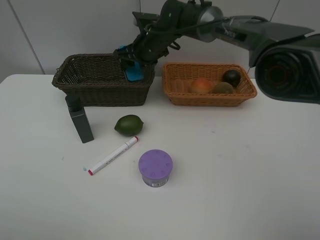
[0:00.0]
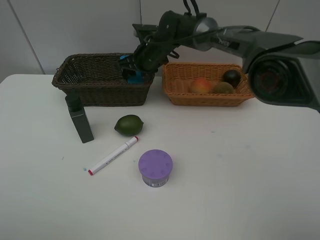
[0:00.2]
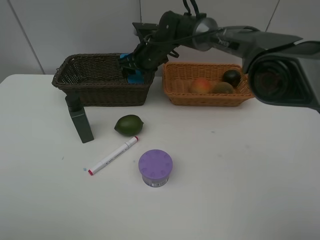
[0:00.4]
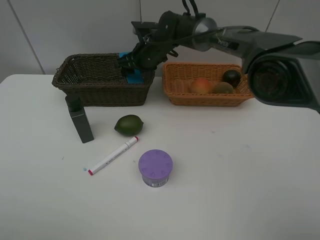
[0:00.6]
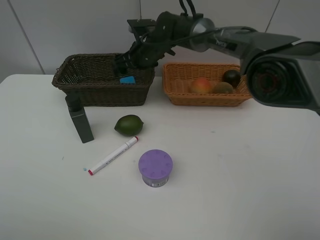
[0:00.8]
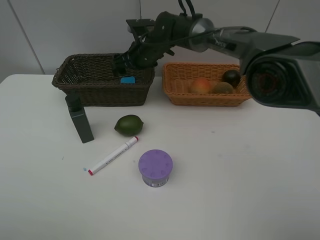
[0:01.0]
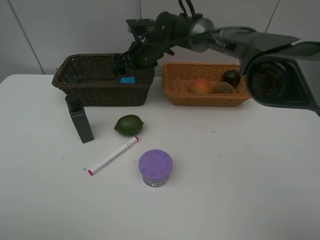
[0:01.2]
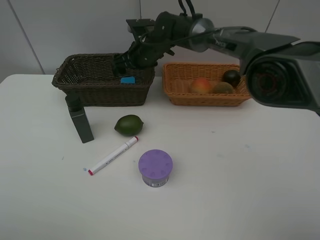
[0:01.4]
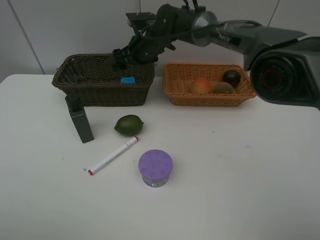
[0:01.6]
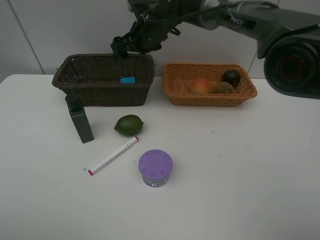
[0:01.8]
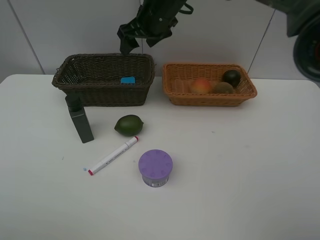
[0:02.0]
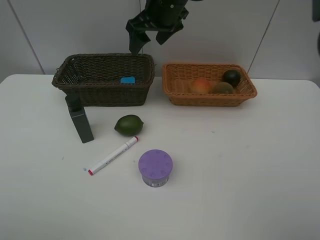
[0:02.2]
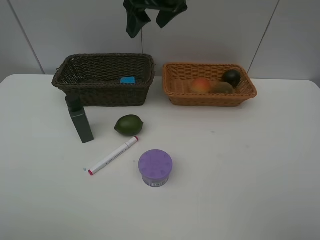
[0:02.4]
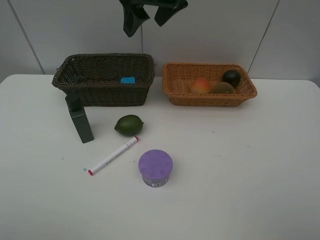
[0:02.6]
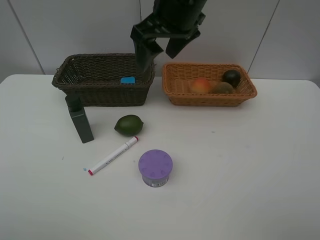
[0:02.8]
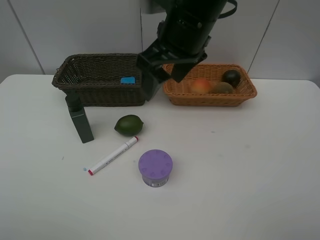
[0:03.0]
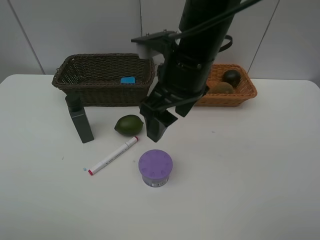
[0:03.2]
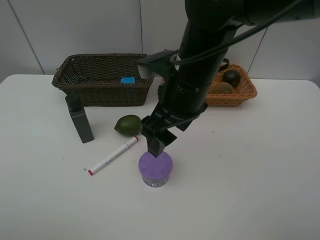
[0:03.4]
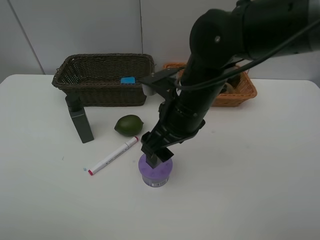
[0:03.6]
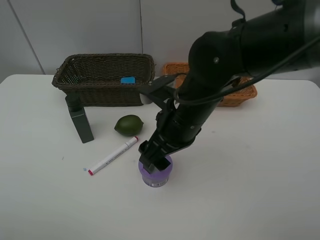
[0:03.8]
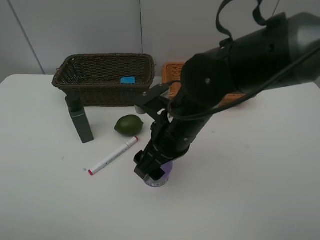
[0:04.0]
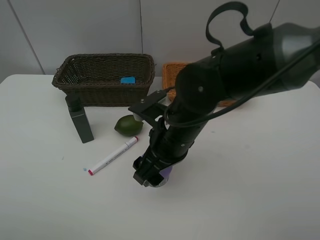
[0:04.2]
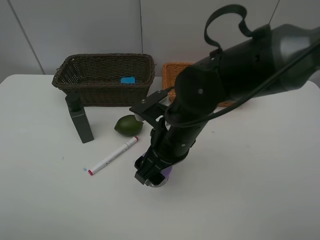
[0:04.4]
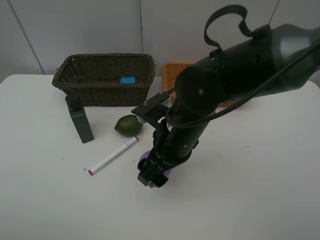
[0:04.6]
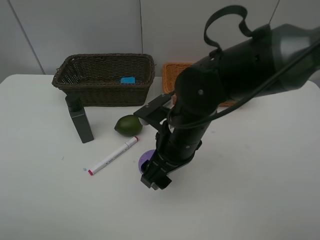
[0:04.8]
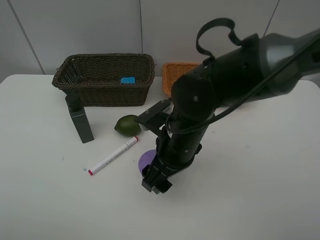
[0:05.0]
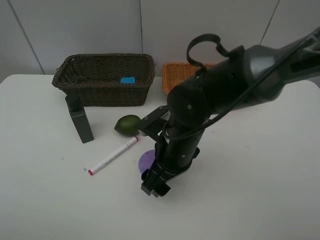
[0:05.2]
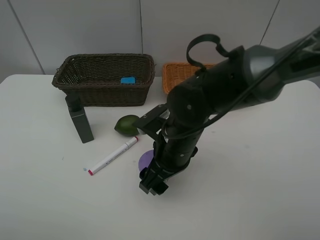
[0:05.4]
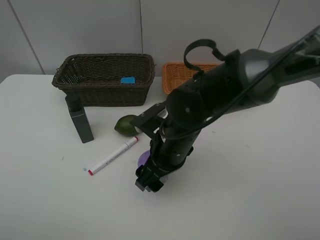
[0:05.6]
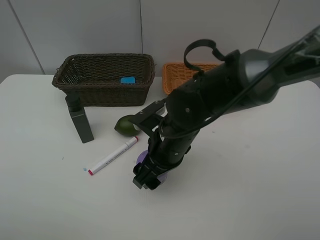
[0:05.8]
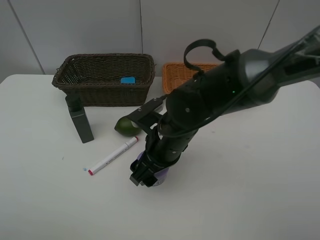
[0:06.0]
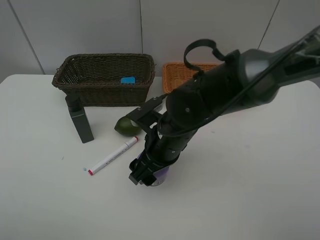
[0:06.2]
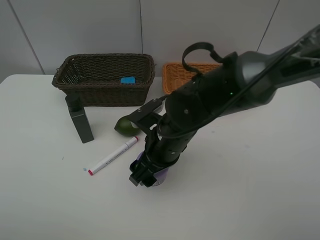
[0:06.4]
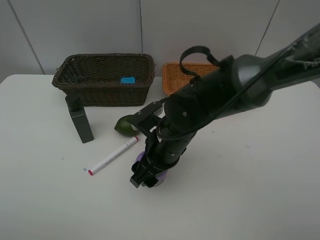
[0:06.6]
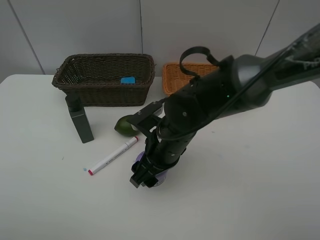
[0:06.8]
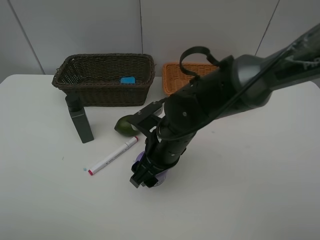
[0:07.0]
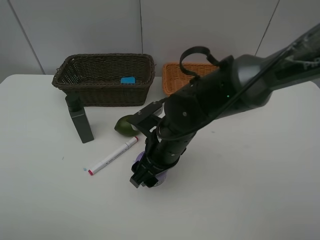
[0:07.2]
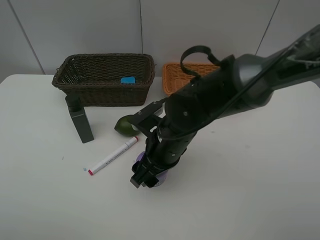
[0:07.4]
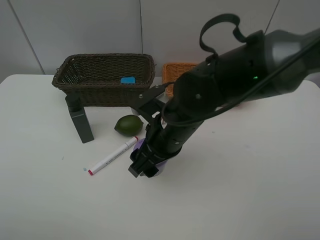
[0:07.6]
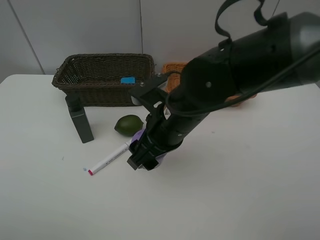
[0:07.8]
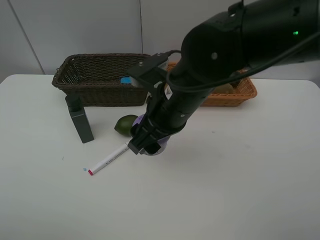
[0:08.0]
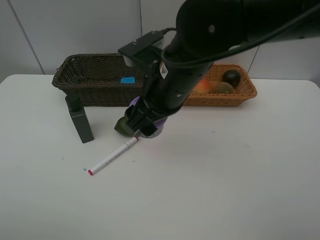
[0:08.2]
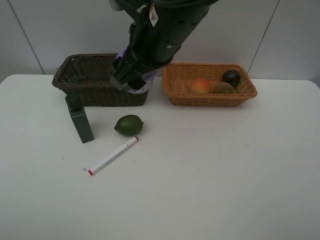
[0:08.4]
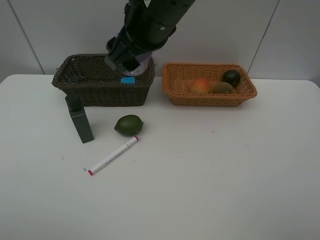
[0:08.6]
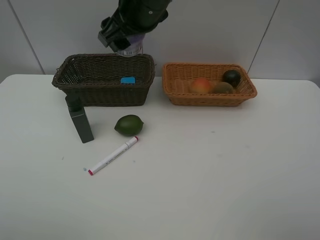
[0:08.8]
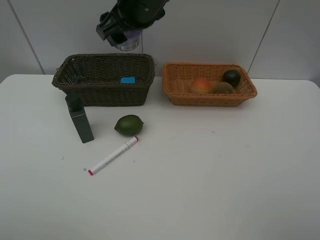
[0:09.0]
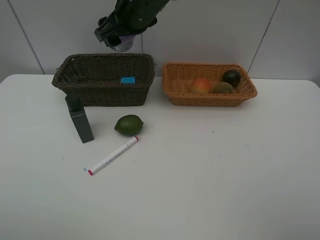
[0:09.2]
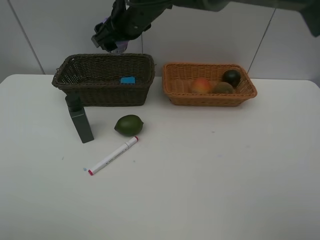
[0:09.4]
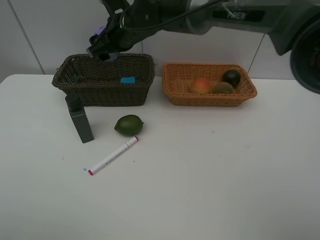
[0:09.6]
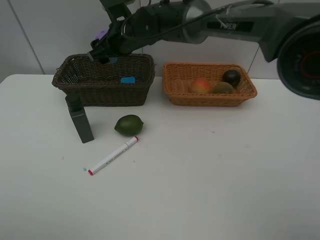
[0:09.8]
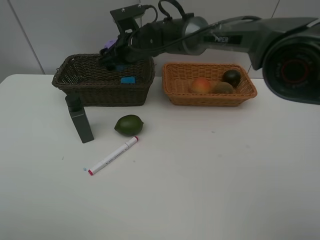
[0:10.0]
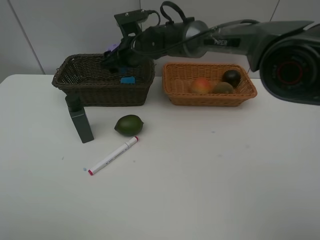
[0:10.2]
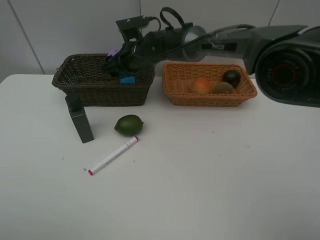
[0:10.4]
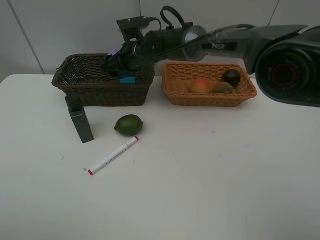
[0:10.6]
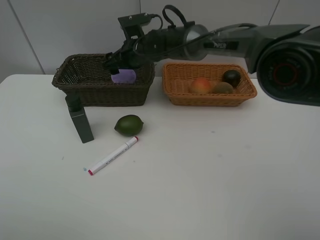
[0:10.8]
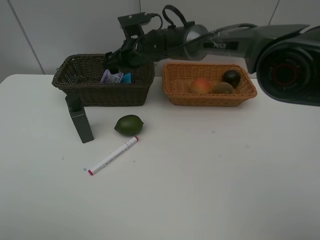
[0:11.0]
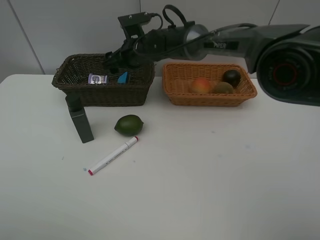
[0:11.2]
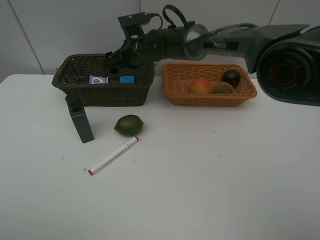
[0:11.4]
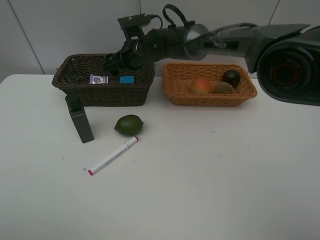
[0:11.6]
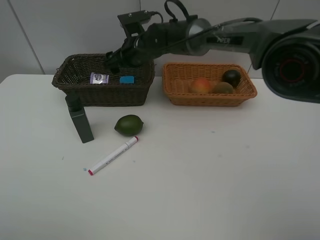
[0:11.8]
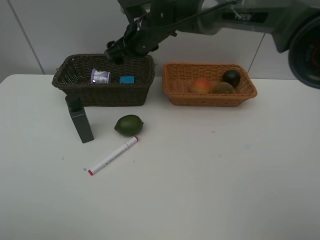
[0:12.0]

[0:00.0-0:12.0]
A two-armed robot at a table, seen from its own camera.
Task of the whole recording: Place multiple objects separately in different baskets.
Step, 0:01.8 to 0:07.4: Pick up Incense box with right gripper.
Step, 0:07.6 to 0:11.4: Place the Incense box in the dark basket with right gripper.
0:00.0 to 0:01.6: The right gripper opens its fingers.
0:01.6 to 0:03.0: The right gripper is displaced backward and upward by approximately 25 cm.
0:03.0 to 0:04.4: The right gripper travels downward and backward by roughly 15 cm.
0:04.4 to 0:07.6: There are only small adjustments of the grippers.
0:07.6 to 0:09.0: The right gripper shifts about 20 cm upward and forward.
0:09.0 to 0:10.4: The right gripper moves downward and forward, roughly 15 cm.
0:10.4 to 0:12.0: The right gripper heads upward, covering approximately 5 cm.

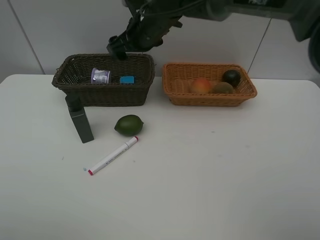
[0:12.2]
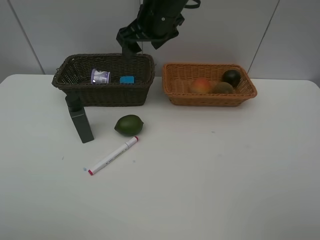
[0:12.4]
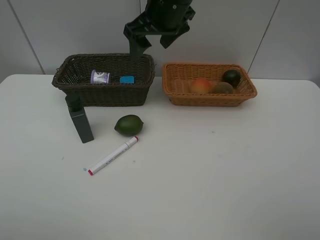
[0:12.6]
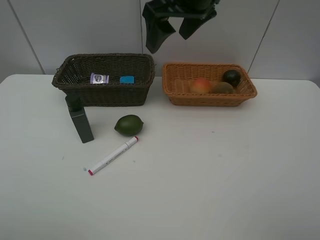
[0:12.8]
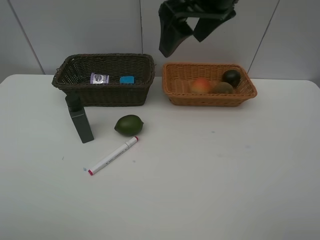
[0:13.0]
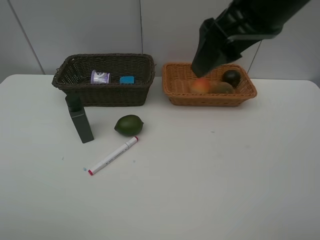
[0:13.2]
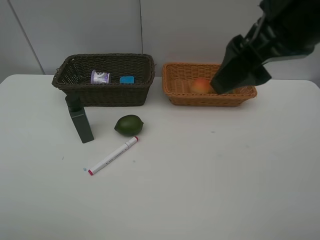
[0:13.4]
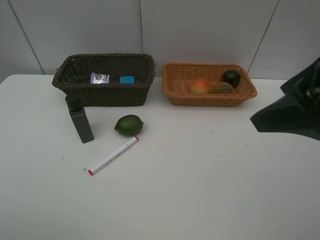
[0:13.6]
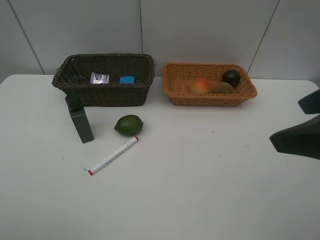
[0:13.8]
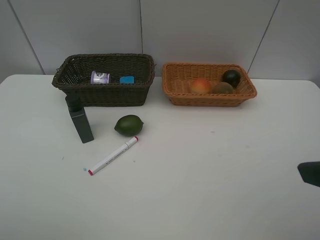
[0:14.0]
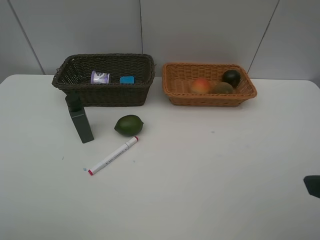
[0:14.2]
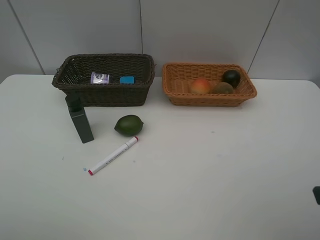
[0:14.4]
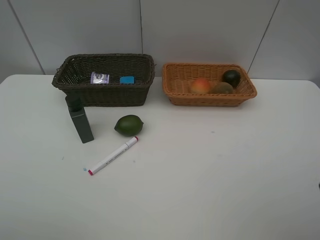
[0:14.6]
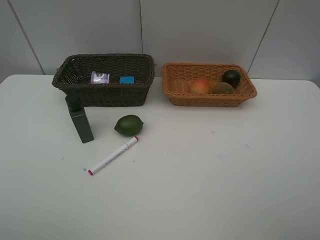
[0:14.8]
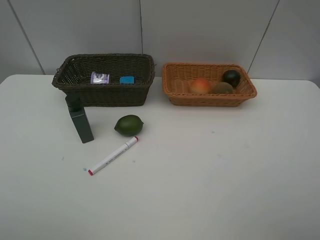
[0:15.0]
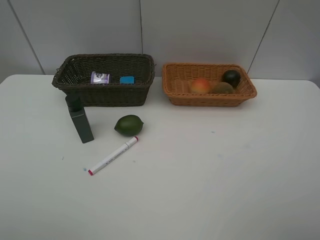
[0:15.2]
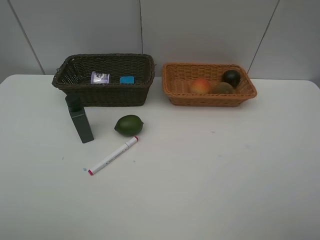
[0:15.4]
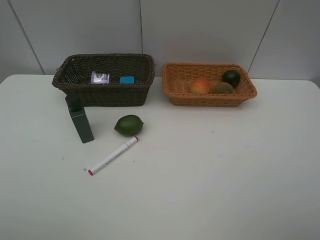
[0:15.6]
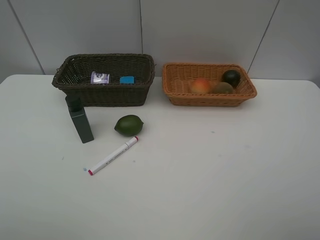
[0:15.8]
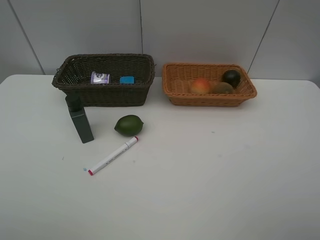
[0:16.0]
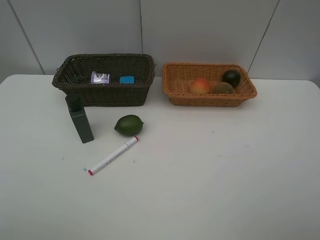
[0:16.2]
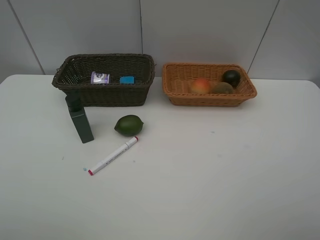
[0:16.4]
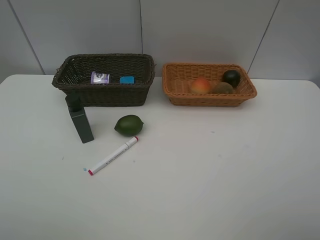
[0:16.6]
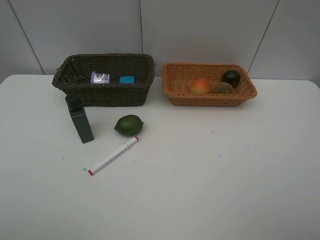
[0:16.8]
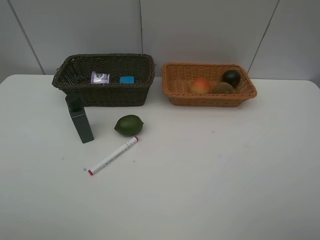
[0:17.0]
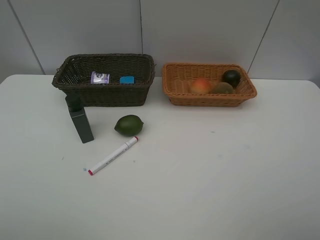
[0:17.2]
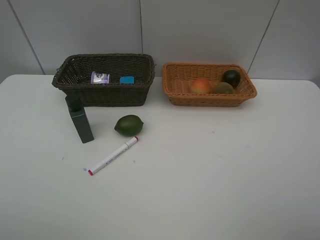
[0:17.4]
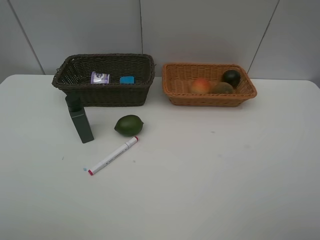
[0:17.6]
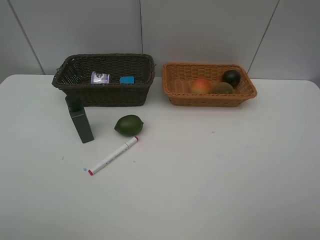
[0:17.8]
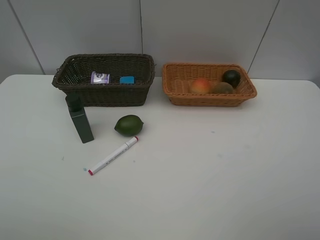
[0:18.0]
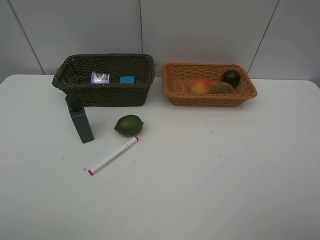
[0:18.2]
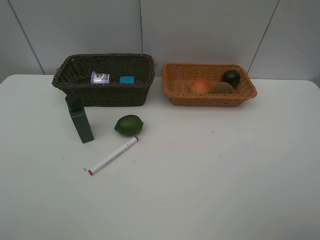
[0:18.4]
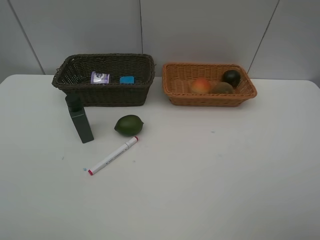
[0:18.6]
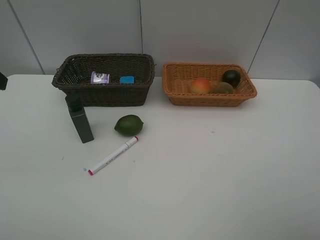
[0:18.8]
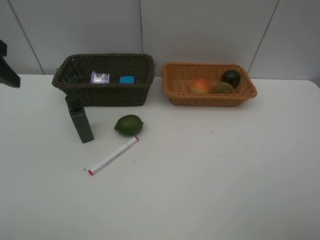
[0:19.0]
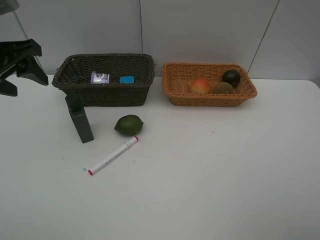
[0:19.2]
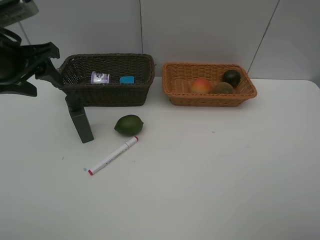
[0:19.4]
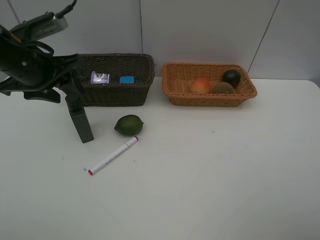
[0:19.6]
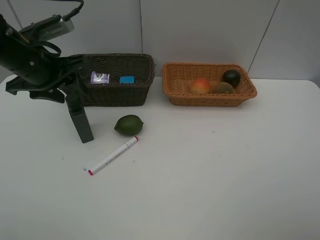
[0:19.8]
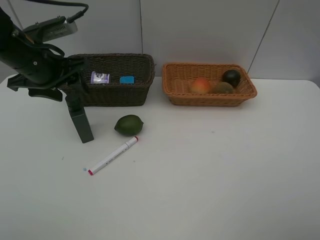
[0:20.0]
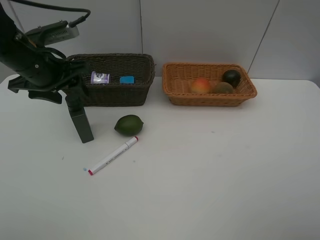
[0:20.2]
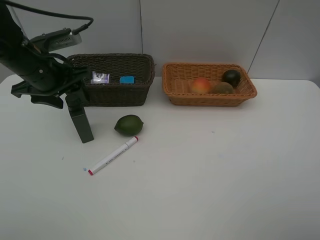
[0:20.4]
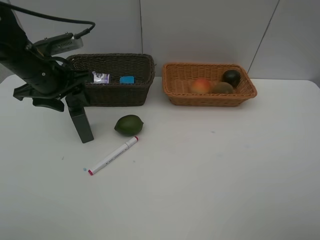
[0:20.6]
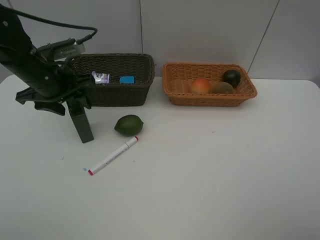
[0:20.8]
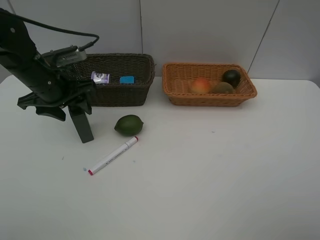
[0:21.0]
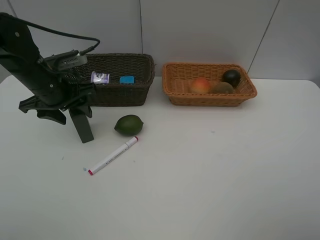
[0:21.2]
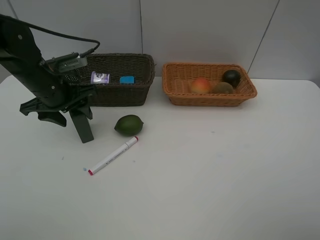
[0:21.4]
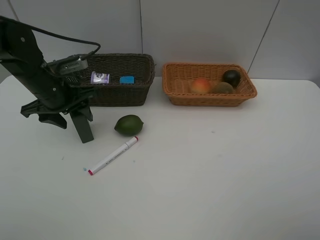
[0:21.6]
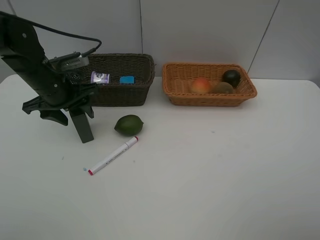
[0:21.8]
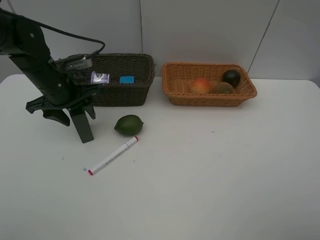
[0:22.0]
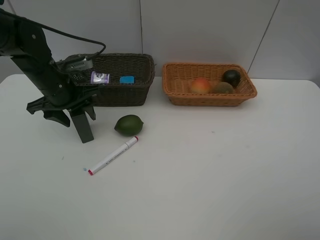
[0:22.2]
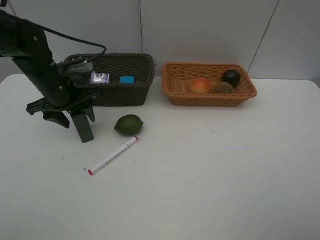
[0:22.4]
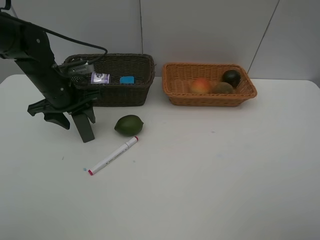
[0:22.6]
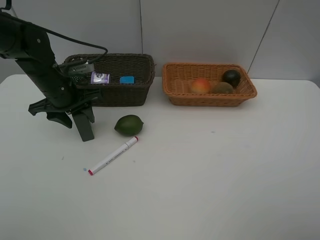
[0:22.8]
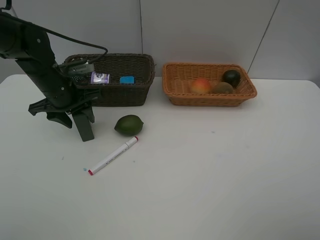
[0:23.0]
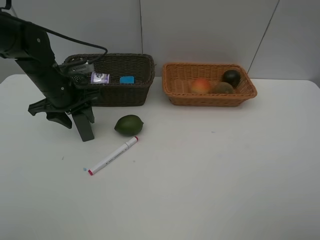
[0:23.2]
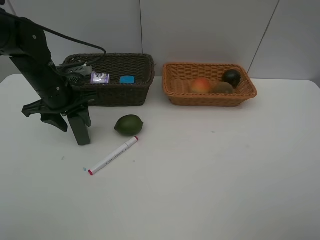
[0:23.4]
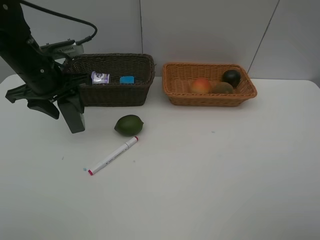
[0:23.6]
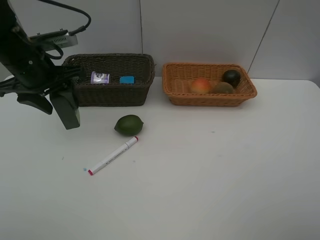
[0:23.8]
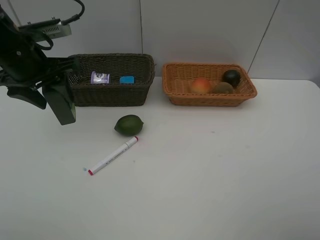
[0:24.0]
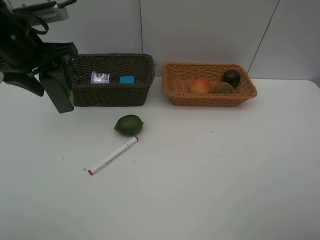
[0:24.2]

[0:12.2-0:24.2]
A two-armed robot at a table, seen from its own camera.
Task of the whole recording: Place multiple objects separately in different baskets.
Step, 0:12.2 to 0:23.4: Pick up the hard facial cleanser with left gripper.
0:12.2 to 0:13.8: The right gripper shifts some 40 cm backward and to the right.
0:13.8 to 0:15.2: The right gripper is displaced backward and to the right by roughly 10 cm.
0:18.2 to 0:19.8: The left gripper moves forward, roughly 25 cm.
0:19.8 to 0:21.2: The left gripper is displaced downward by about 5 cm.
0:21.2 to 0:22.6: The grippers stay close to where they were, moving slightly.
0:22.6 to 0:24.2: The left gripper moves upward, some 15 cm.
